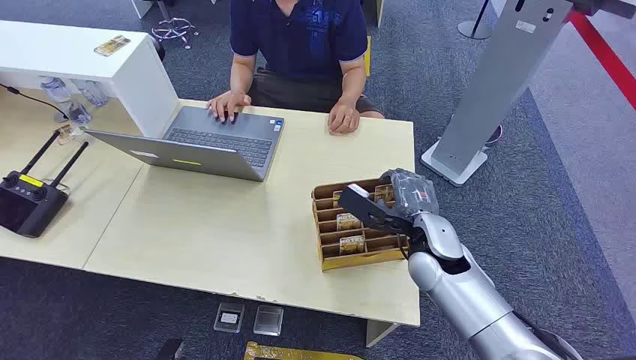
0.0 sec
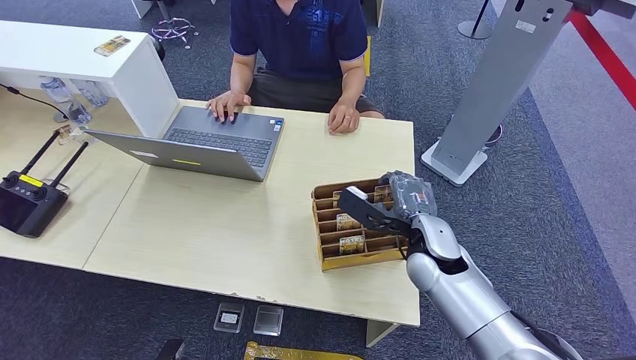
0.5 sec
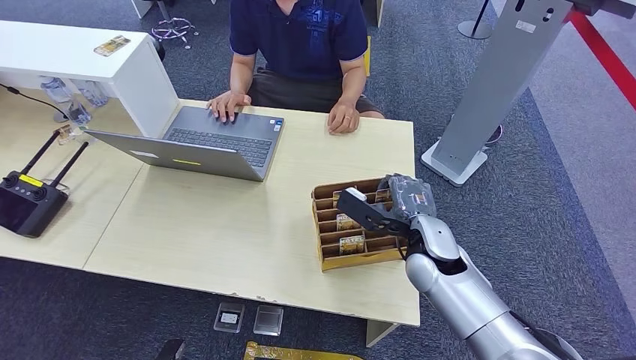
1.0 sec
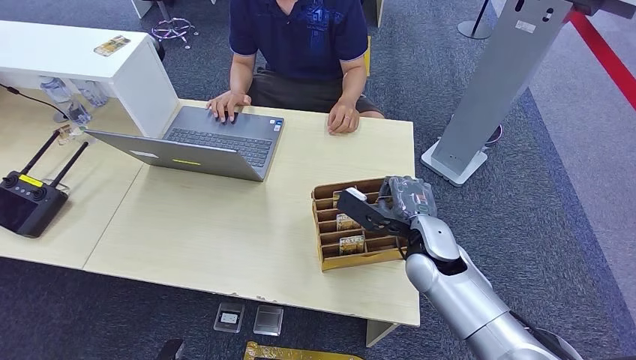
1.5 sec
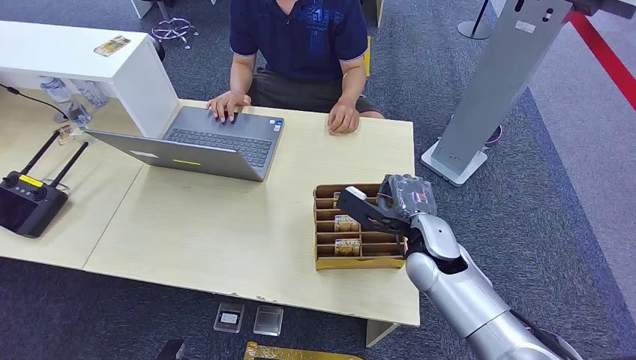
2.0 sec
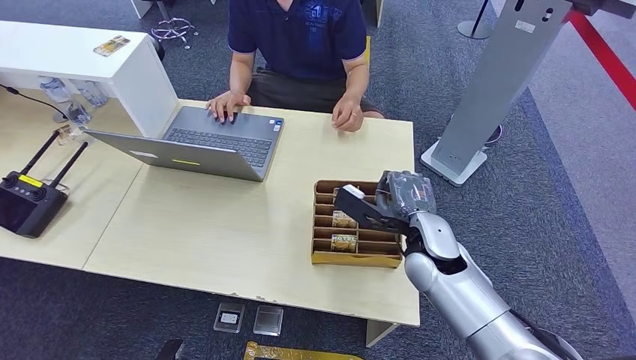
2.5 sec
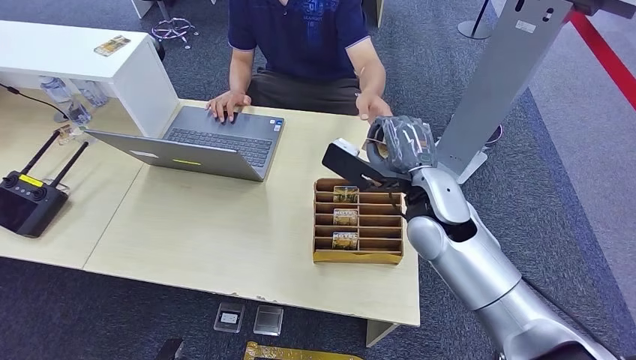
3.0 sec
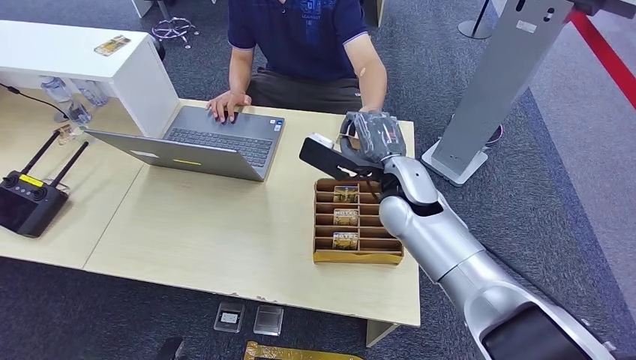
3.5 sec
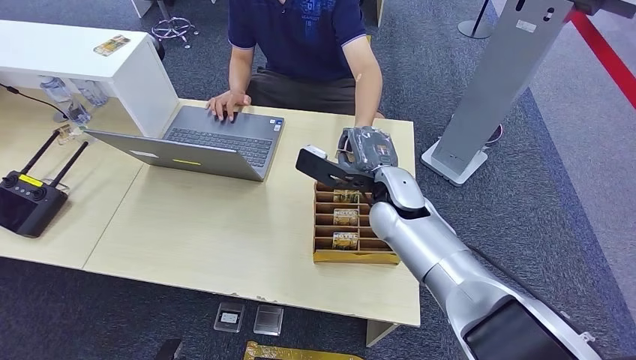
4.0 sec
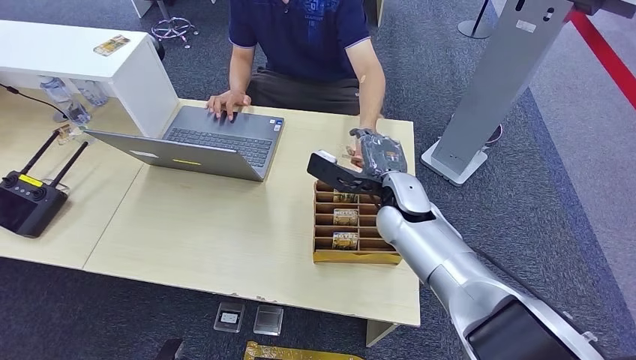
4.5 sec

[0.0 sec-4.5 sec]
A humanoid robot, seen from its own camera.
Step, 0.0 sec to 2.5 sec: Pick up the key card from the card box.
Step, 3.5 sec to 4.5 sec: Hand the key card to the target.
2.0 sec to 4.5 sec: The right hand is displaced to the left and forward by roughly 10 cm.
